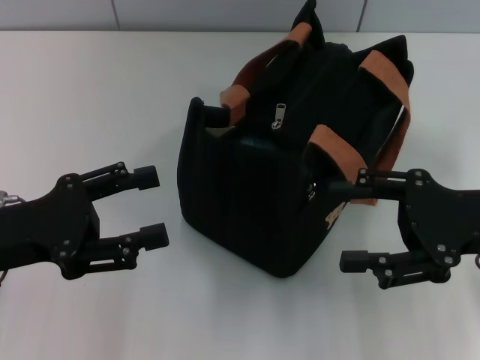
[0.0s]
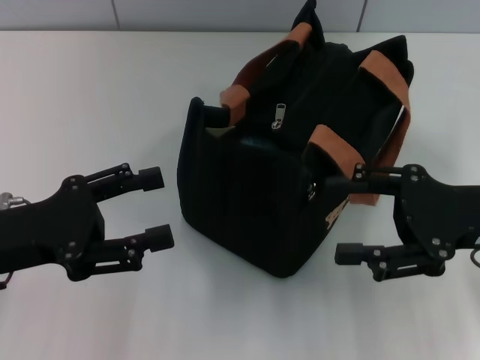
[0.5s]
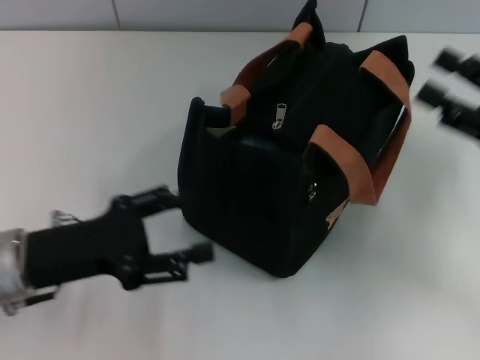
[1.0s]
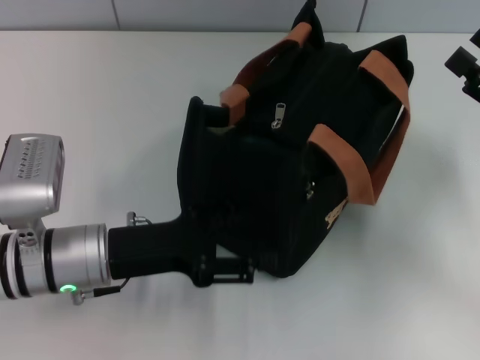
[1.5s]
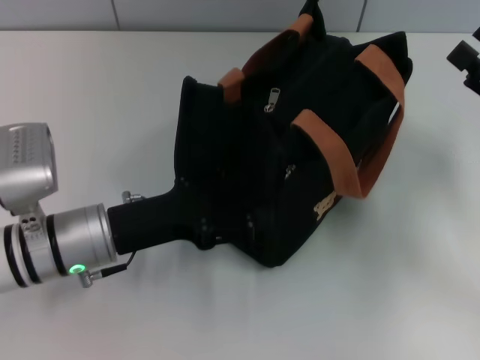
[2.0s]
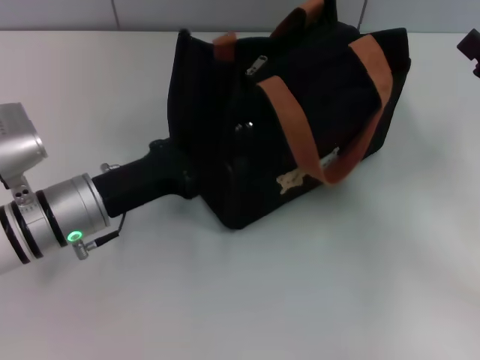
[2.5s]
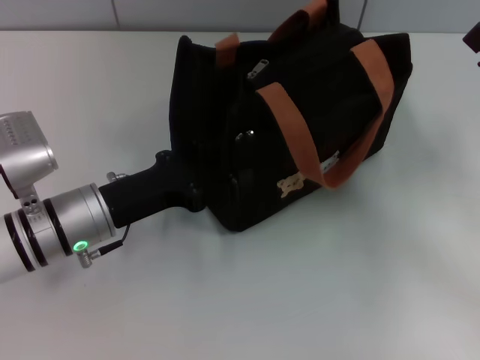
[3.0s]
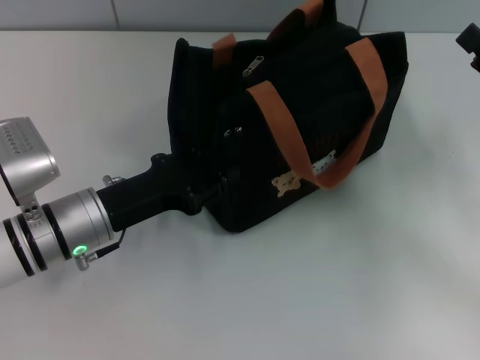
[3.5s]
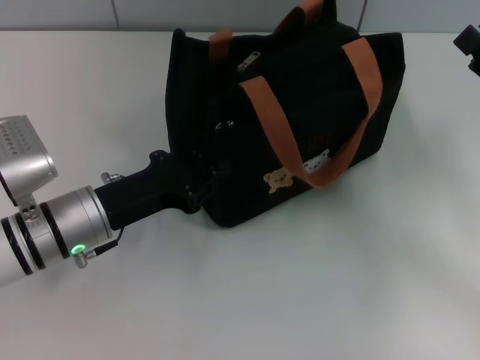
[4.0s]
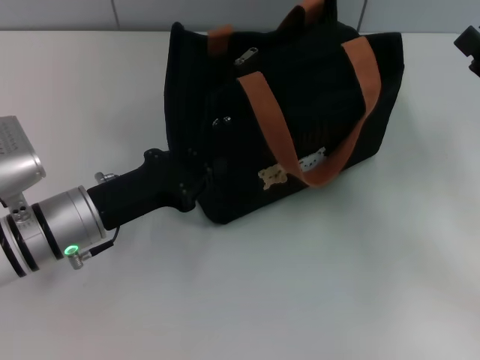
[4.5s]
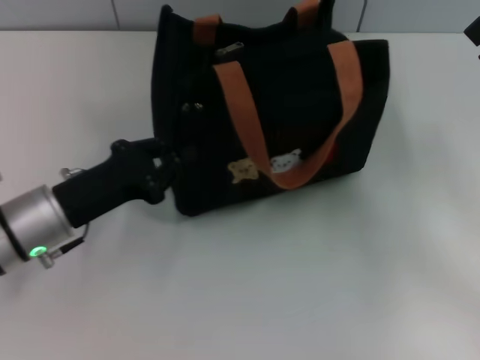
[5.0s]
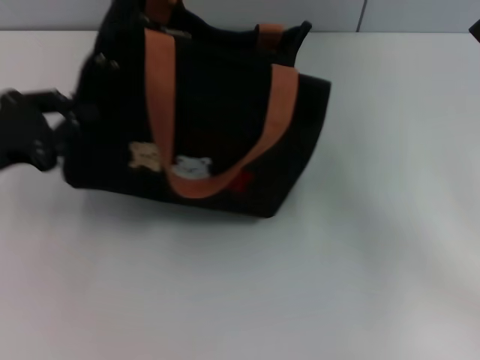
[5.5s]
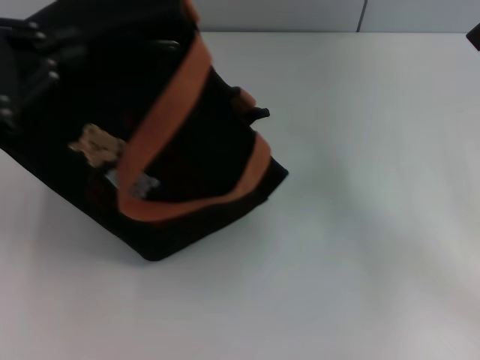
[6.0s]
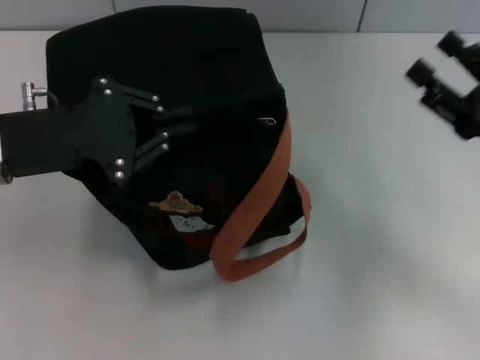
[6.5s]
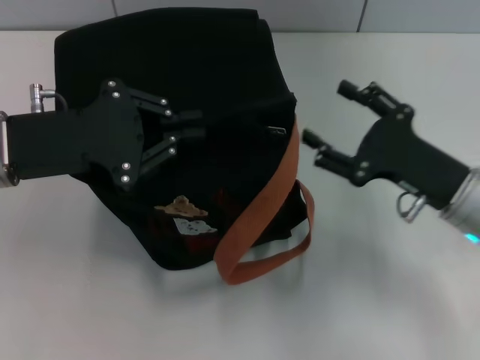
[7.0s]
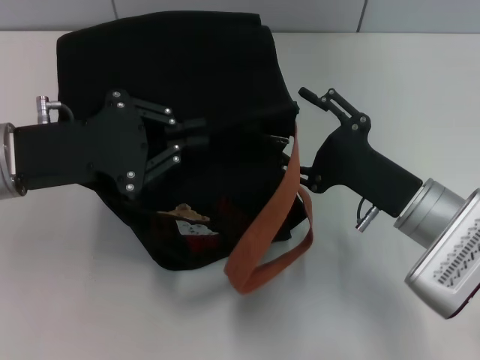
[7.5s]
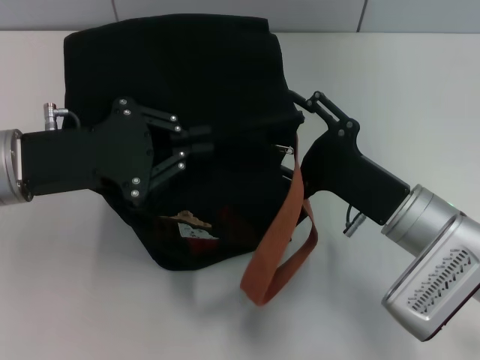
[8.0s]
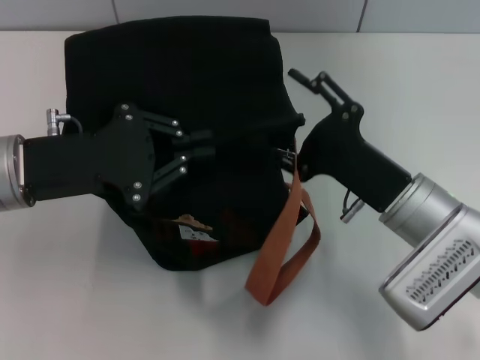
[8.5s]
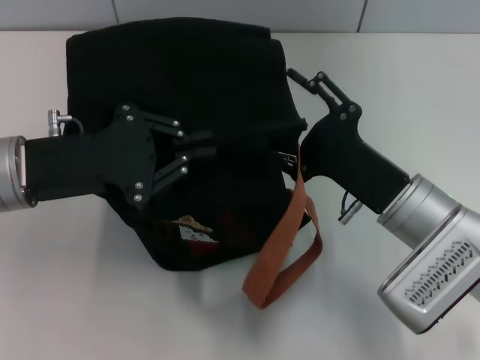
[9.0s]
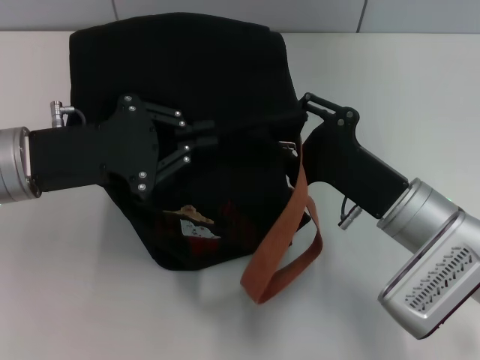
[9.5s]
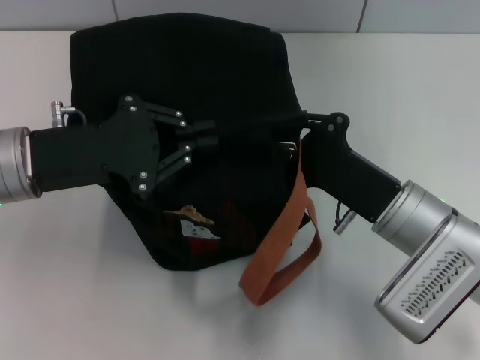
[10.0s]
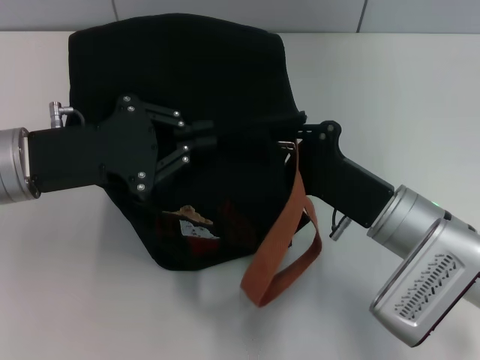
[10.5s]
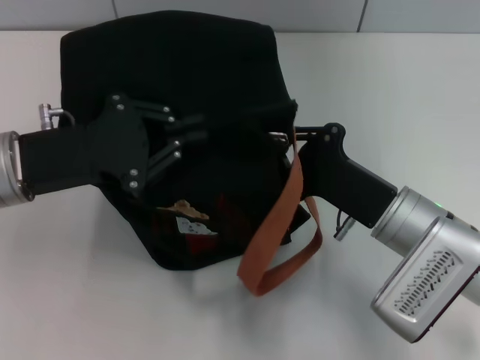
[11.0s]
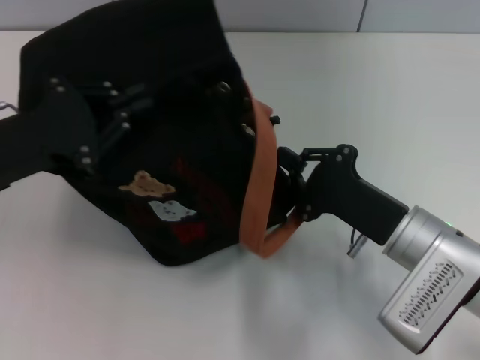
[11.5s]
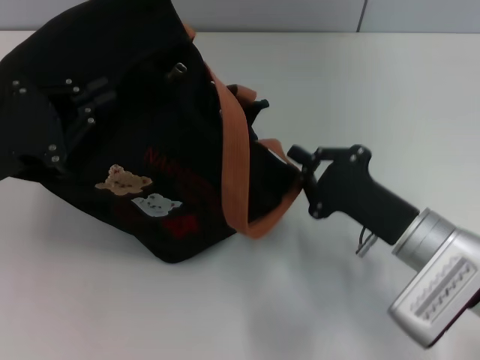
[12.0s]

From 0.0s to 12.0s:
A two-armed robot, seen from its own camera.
From 0.0s to 2.0s: The left gripper moves to the right and downward, roughly 10 cm, while the right gripper is displaced to the right by roughly 5 cm.
From 2.0s to 4.0s: The left gripper closes.
From 4.0s to 6.0s: The left gripper moves upward and to the left, approximately 20 cm.
From 6.0s to 8.0s: The left gripper is displaced to the right and downward by some 10 cm, while the right gripper moves to the left, approximately 15 cm.
From 8.0s to 10.0s: The right gripper closes its fingers.
From 10.0s to 12.0s: The left gripper heads to the left, covering some 5 cm.

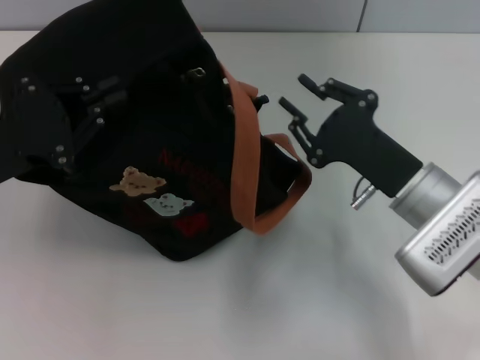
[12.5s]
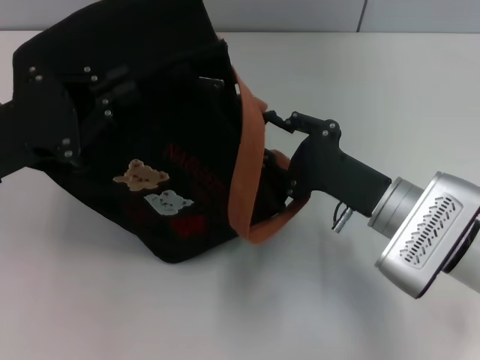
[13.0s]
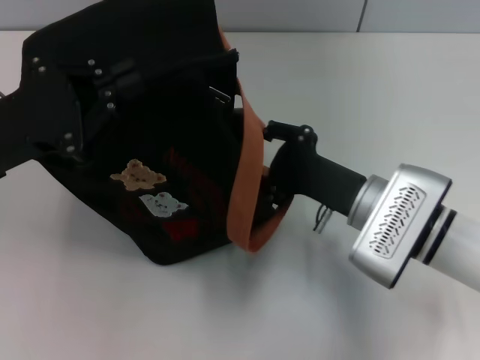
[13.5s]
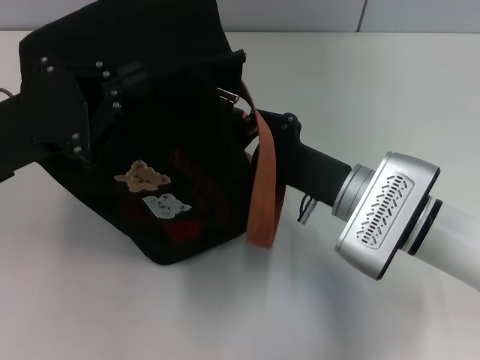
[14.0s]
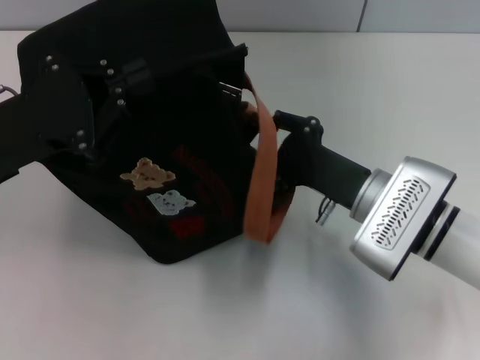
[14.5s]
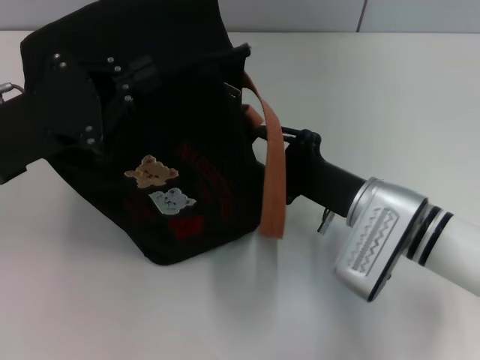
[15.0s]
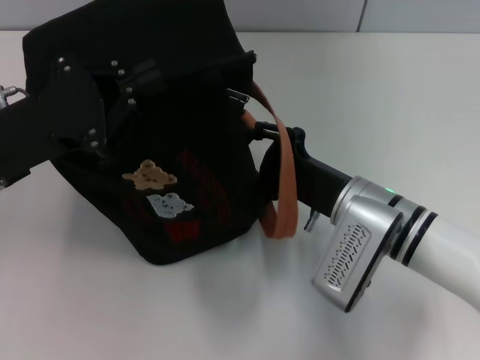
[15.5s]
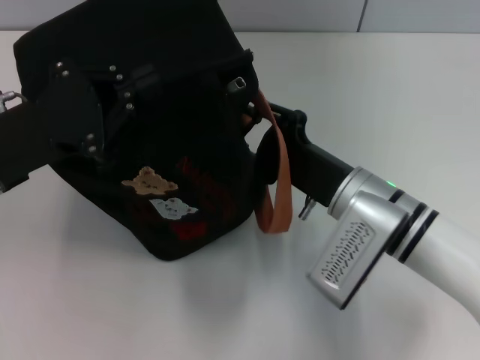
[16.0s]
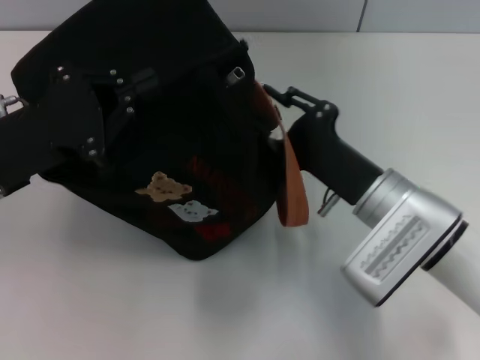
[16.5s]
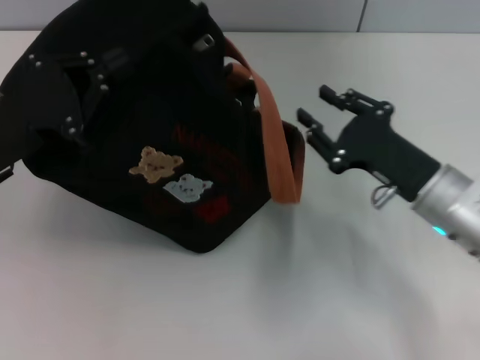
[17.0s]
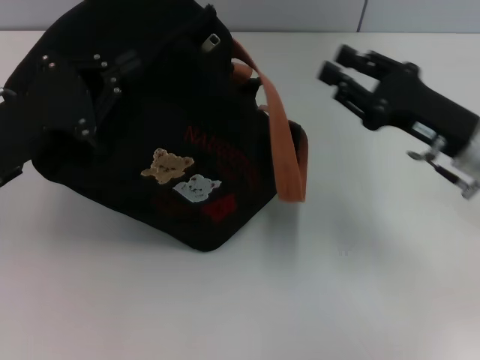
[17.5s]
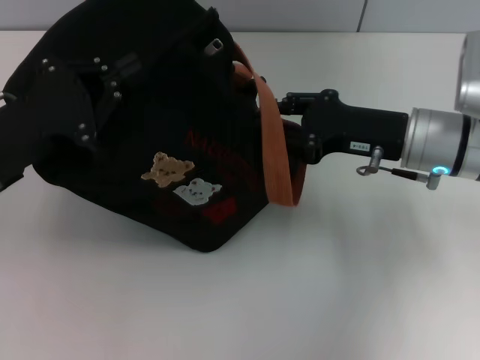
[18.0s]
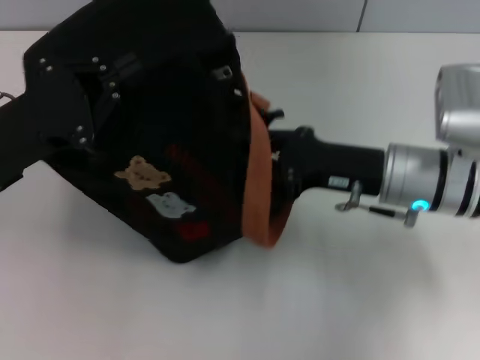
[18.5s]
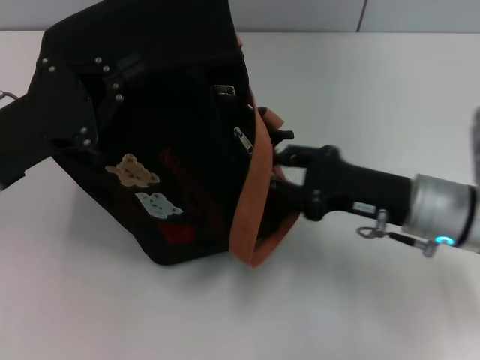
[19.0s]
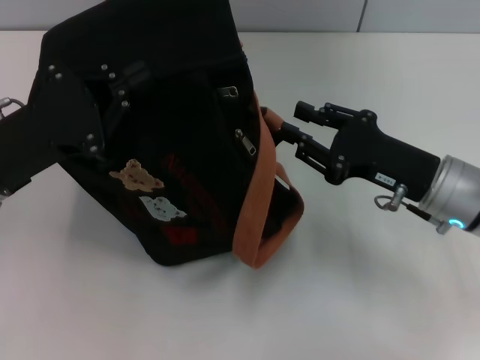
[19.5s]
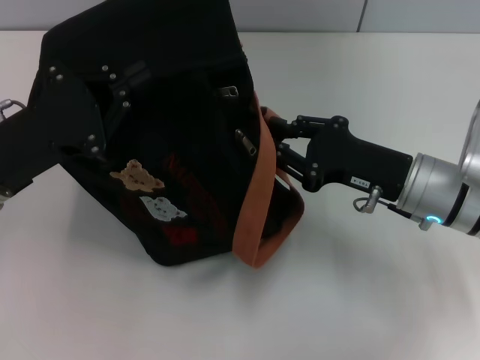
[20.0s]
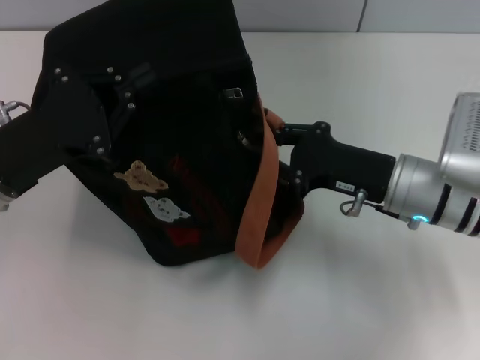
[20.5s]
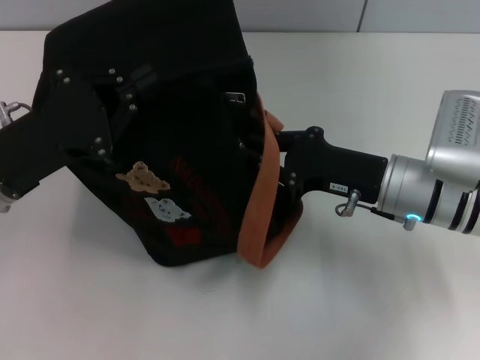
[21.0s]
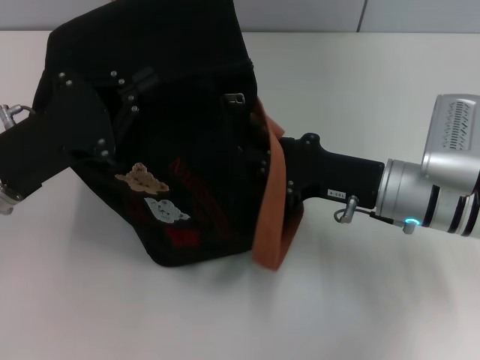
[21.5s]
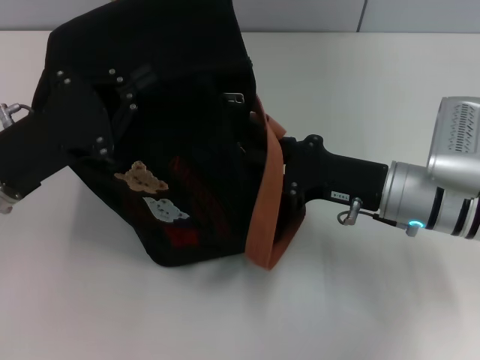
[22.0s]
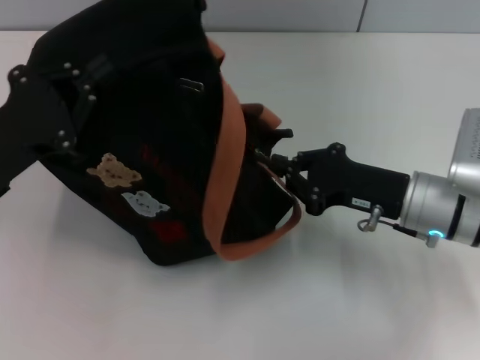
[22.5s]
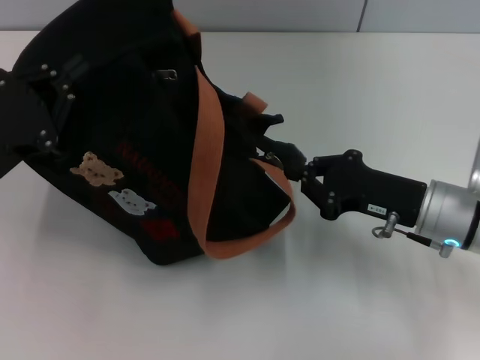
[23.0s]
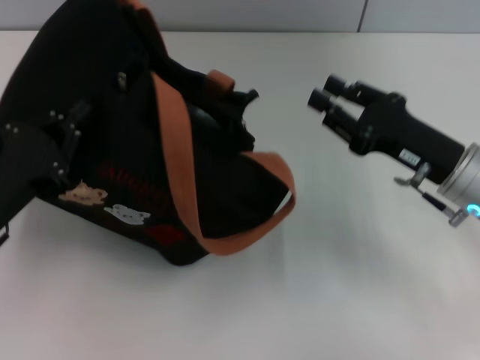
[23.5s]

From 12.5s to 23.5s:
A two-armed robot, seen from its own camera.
Step, from 12.5s to 23.5s: Pull open the zipper with your right hand.
From 12.5s to 14.5s: The right gripper opens up.
From 16.0s to 18.0s: The right gripper heads to the right, forward and upward, covering about 10 cm.
From 18.0s to 20.0s: The right gripper ends up approximately 5 cm from where it was.
From 20.0s to 21.5s: The right gripper closes.
From 21.5s to 23.5s: The left gripper changes place by approximately 5 cm; the right gripper travels to the right by some 5 cm.

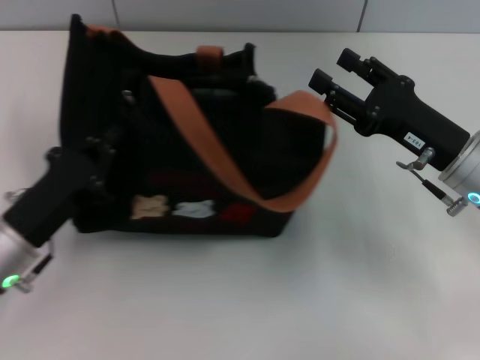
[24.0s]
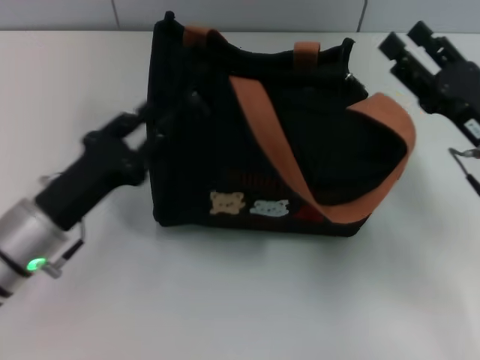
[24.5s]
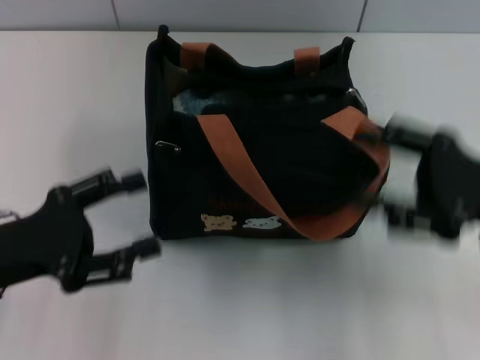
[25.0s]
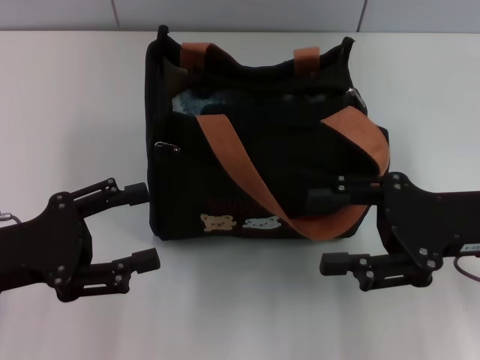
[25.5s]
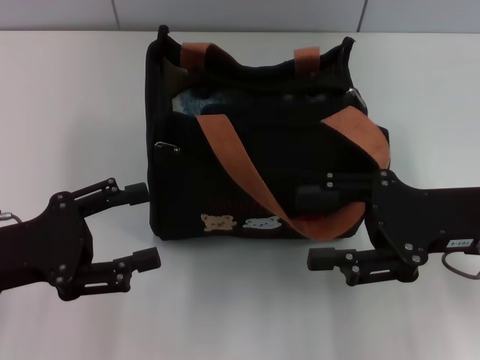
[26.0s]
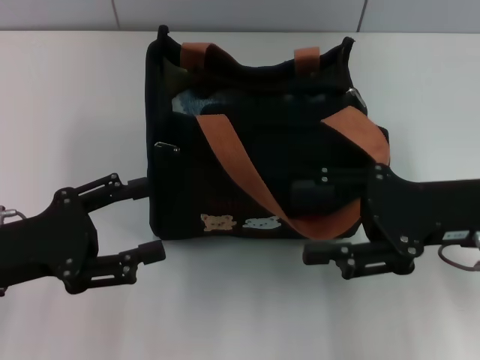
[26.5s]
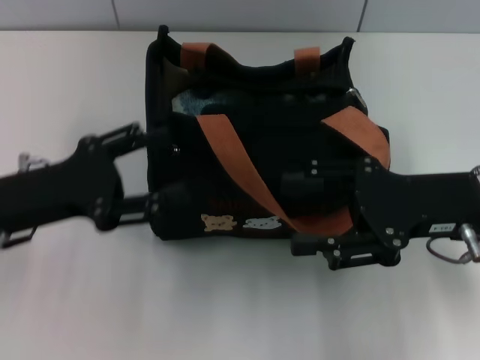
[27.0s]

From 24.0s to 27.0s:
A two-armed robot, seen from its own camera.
Step, from 24.0s to 24.5s: Grab the bag with your left hand.
From 24.0s to 25.5s: The left gripper travels upward by approximately 5 cm, and opens up, while the right gripper changes place by approximately 5 cm.
From 25.5s to 27.0s: The left gripper moves some 5 cm.
